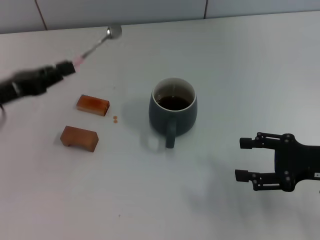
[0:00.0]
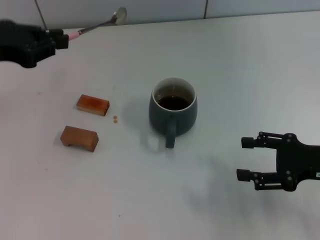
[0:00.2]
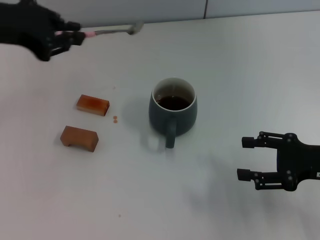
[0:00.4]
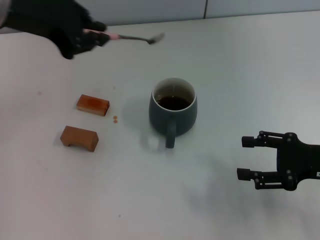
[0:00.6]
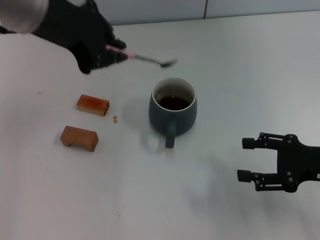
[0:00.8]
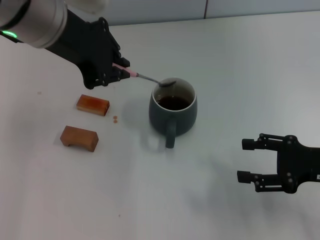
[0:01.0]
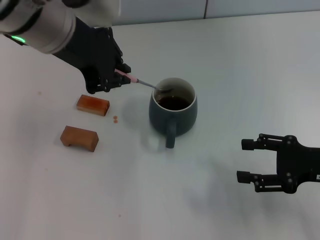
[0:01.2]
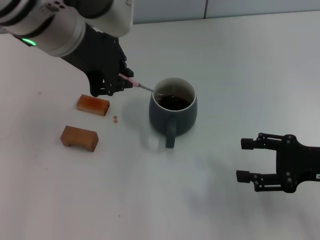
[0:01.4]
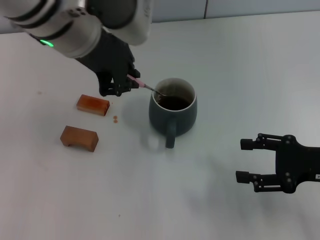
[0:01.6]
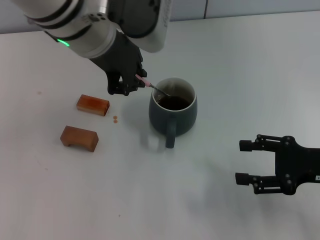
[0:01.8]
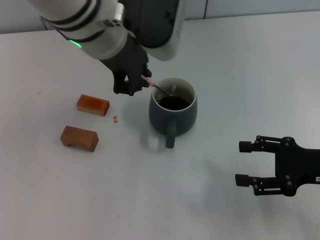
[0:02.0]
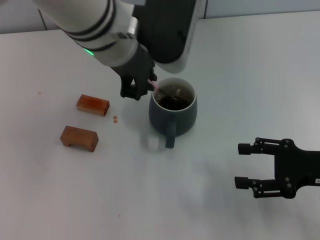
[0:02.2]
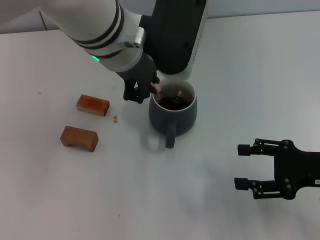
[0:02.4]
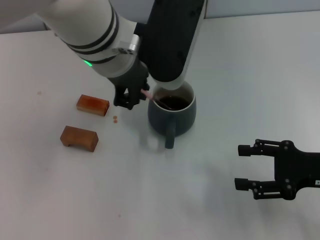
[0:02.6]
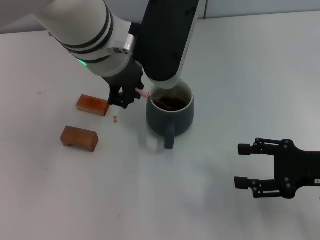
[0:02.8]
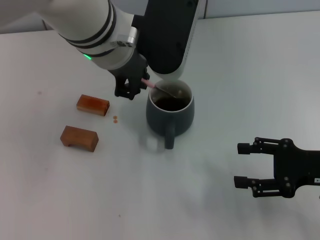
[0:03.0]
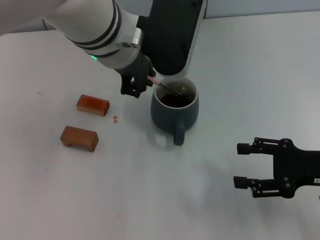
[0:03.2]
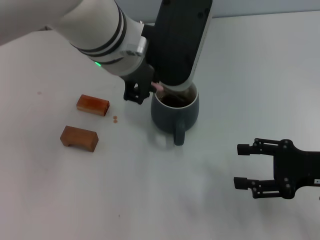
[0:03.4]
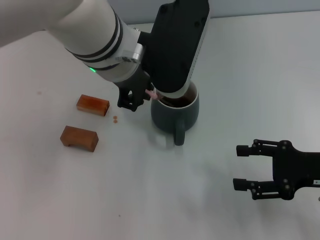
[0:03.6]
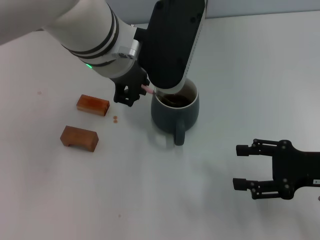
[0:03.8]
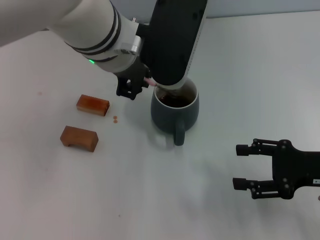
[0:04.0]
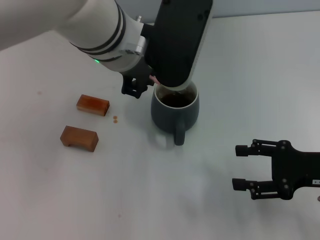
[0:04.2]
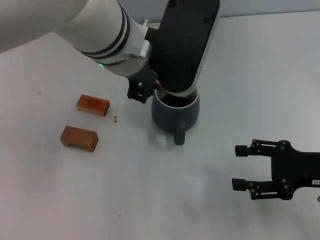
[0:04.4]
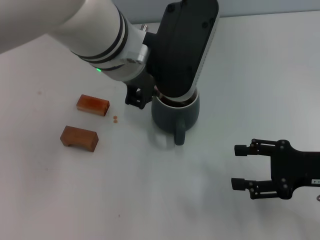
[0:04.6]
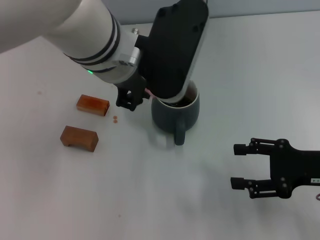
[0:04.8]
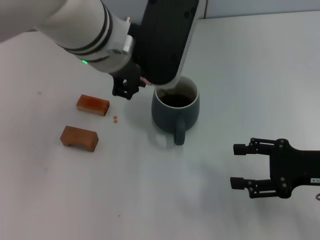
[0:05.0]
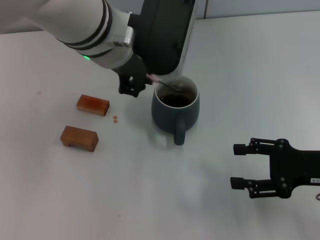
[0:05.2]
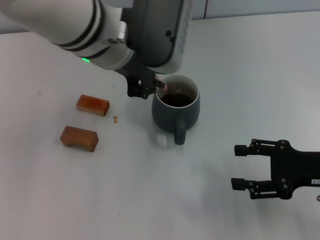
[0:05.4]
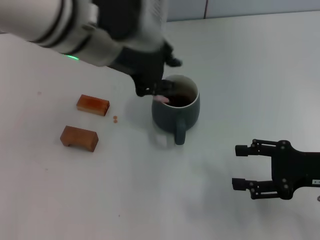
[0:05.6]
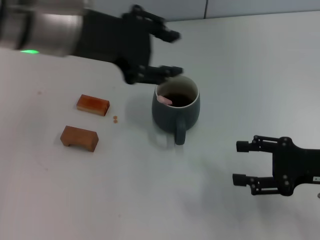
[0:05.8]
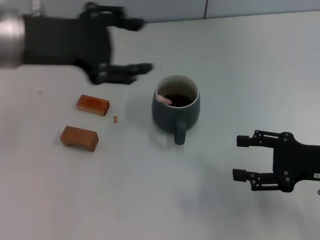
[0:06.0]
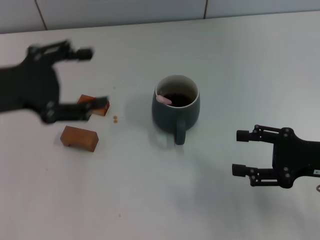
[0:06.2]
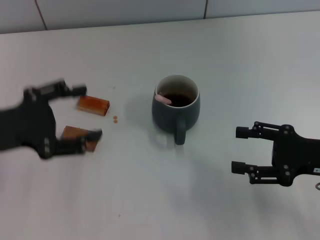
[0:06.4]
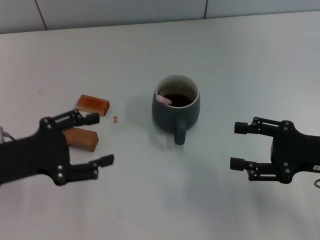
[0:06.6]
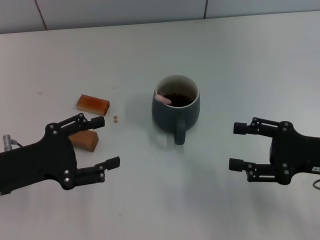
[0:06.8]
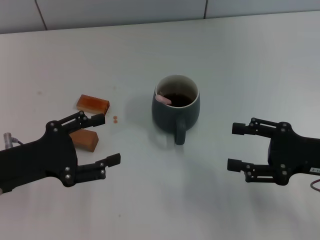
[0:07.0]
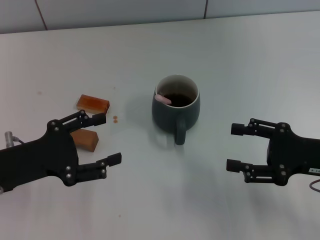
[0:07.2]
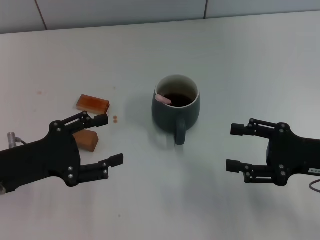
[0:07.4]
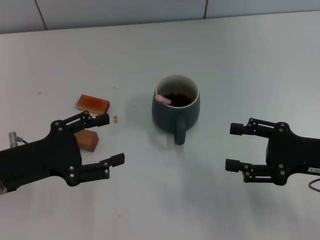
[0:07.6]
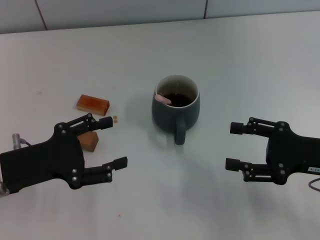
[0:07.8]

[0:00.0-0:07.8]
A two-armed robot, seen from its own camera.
Task of the whole recording: Move the grey cup to the center, lift the pink spoon, stir it three times in the cup, and put the spoon into the cup.
Step, 0:00.0 to 0:05.4: Stir the coffee in the cup with the left gripper.
0:00.0 to 0:01.6: The left gripper is displaced to the right and upward by some 25 cm.
0:01.6 to 0:03.2: The left gripper ends up about 5 cm from where it was.
0:03.2 to 0:04.6: The grippers move only a little.
0:04.6 to 0:06.2: The left gripper shifts some 20 cm to the left, and opens its fingers.
0:06.2 to 0:07.8: The left gripper travels downward by about 10 cm.
